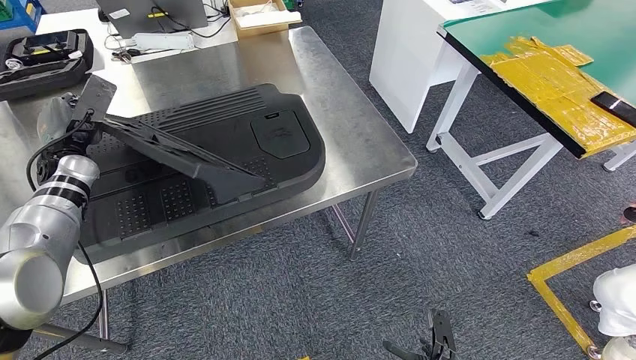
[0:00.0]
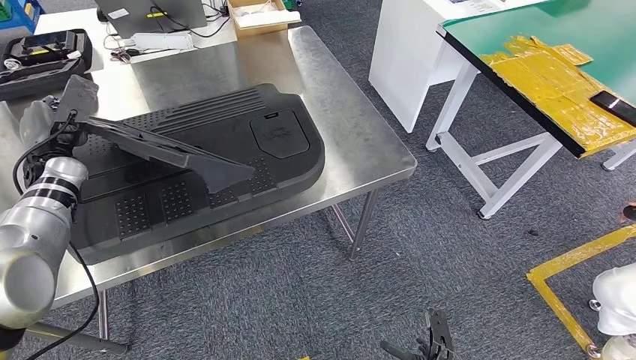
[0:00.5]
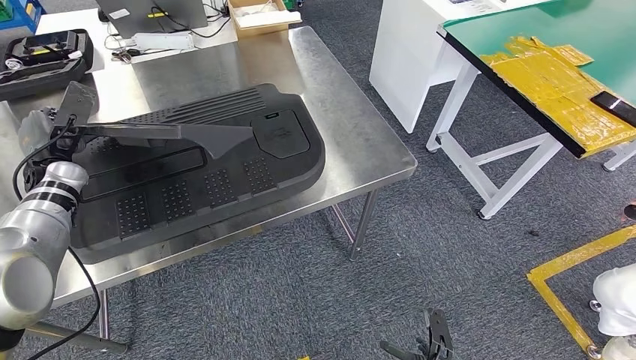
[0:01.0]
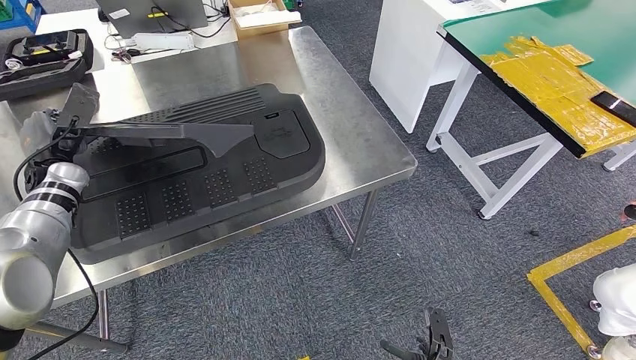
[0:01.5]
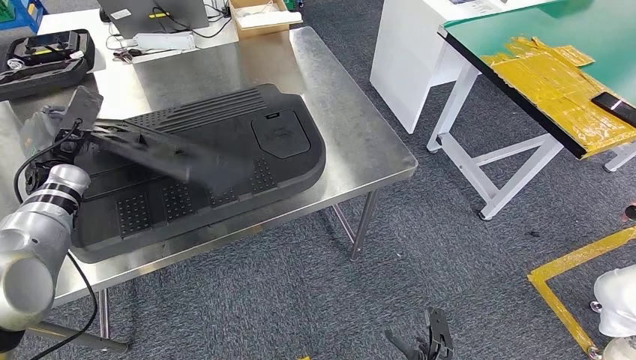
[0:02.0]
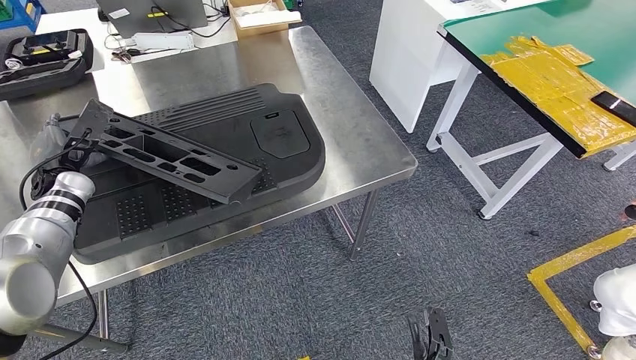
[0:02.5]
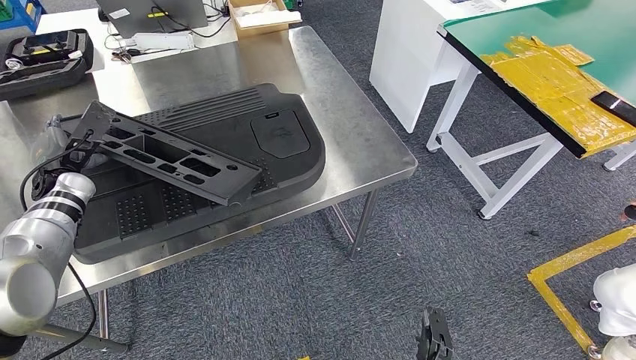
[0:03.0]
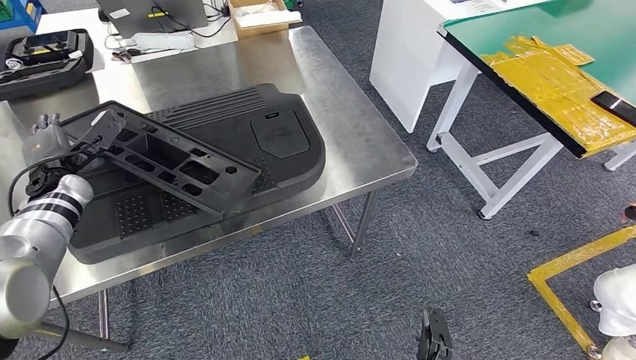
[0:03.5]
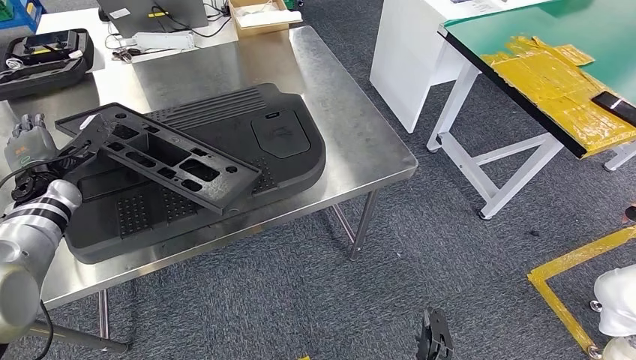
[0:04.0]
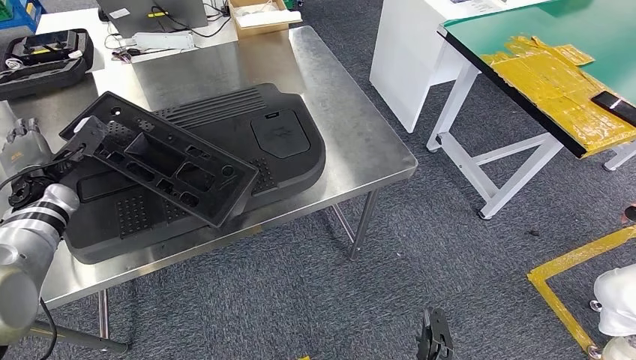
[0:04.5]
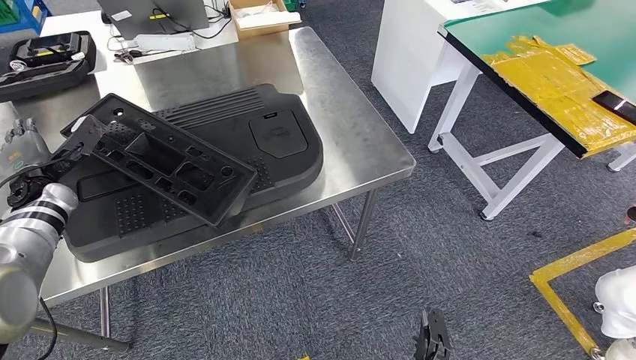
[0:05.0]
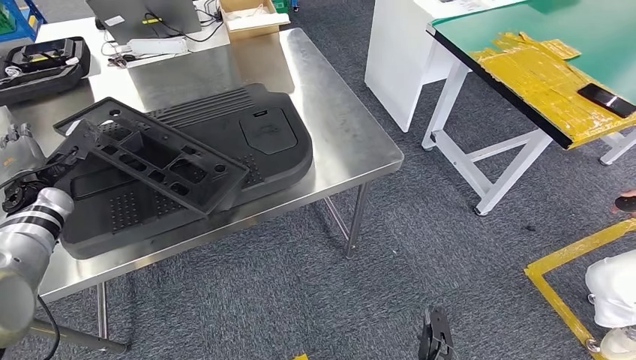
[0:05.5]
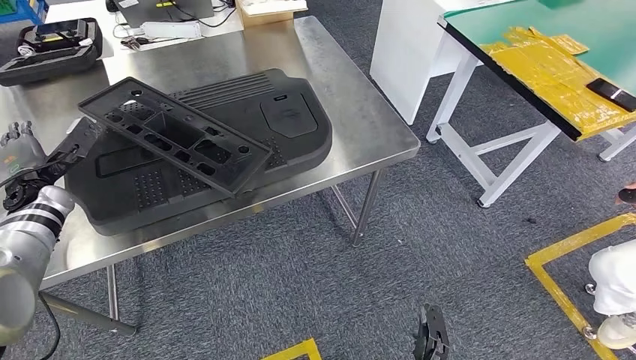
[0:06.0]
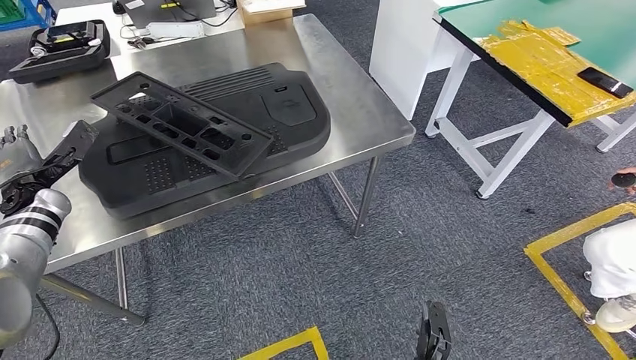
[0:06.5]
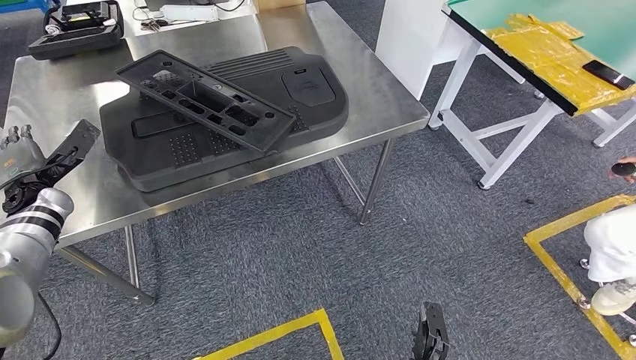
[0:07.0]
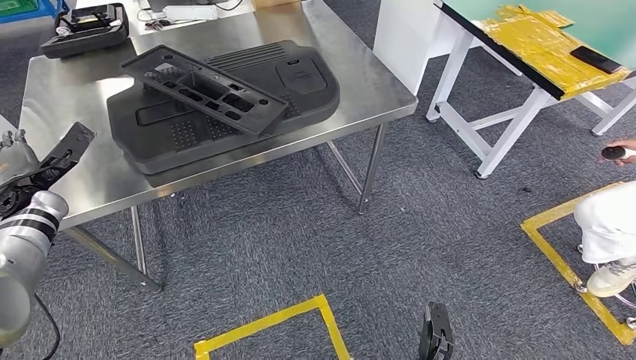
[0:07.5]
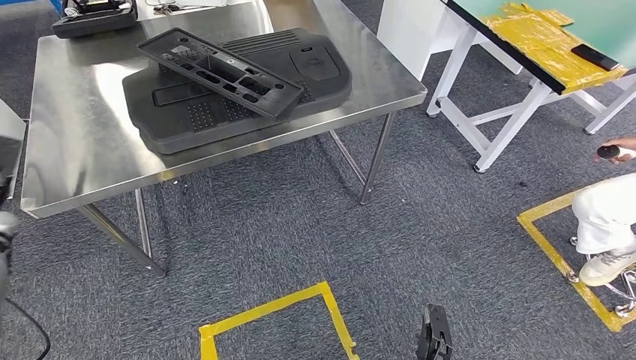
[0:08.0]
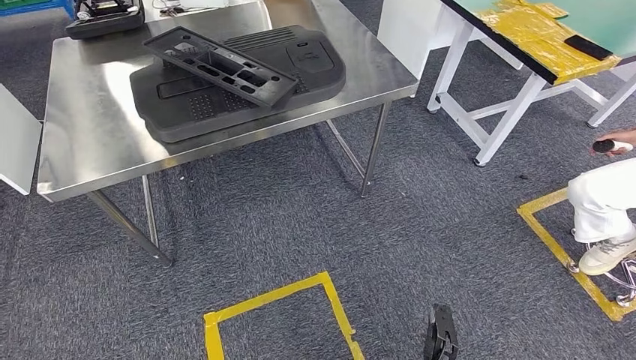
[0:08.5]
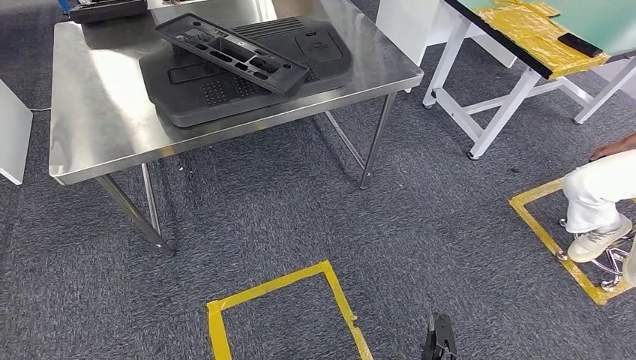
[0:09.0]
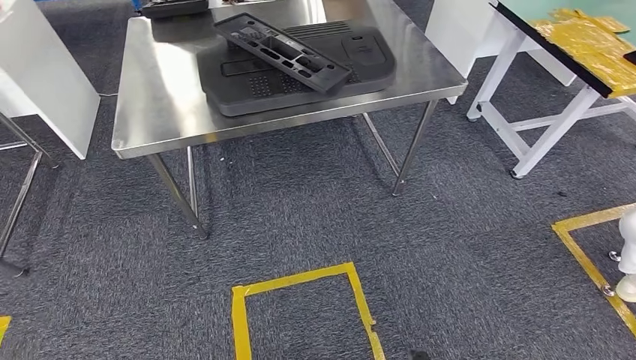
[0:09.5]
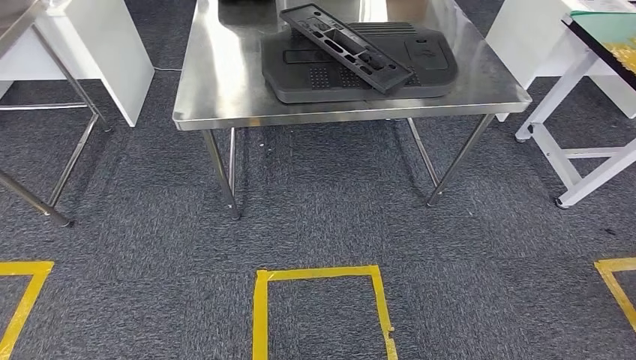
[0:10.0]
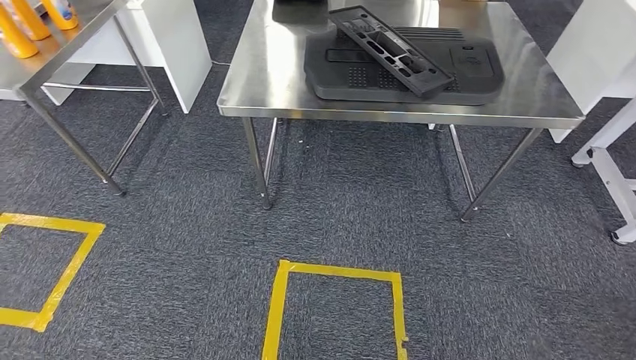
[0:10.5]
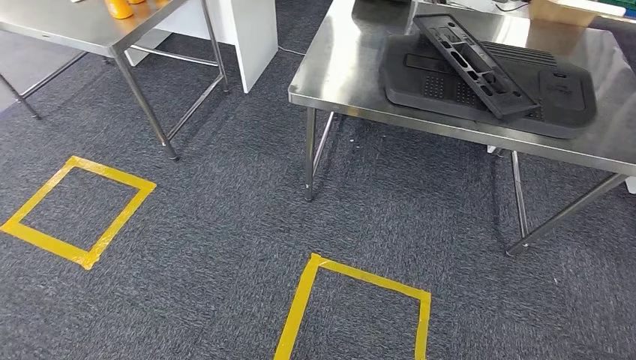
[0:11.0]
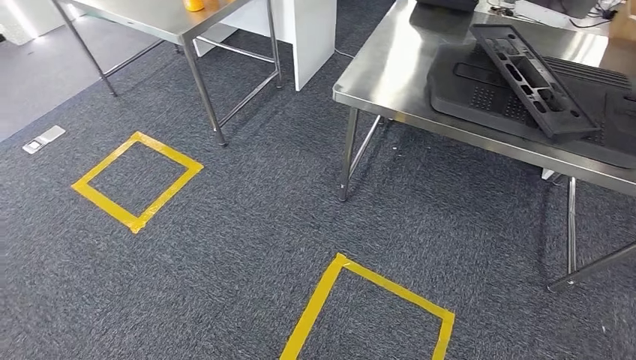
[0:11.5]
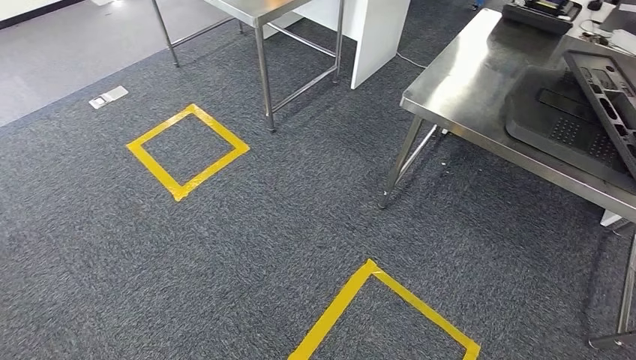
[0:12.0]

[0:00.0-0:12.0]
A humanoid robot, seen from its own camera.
Step, 0:00.0 to 0:03.5: Insert the large material into the corresponding slot on the workbench.
0:00.0 to 0:02.0: The hands stay close to where they were, moving slightly.

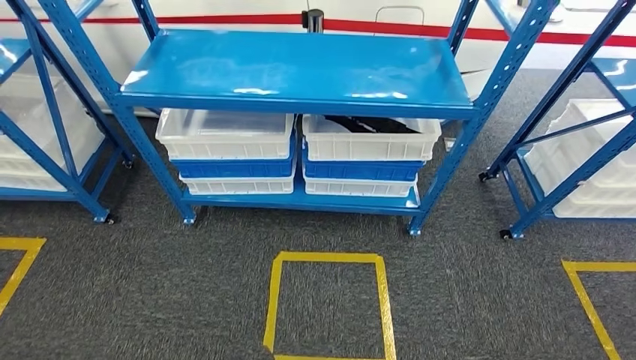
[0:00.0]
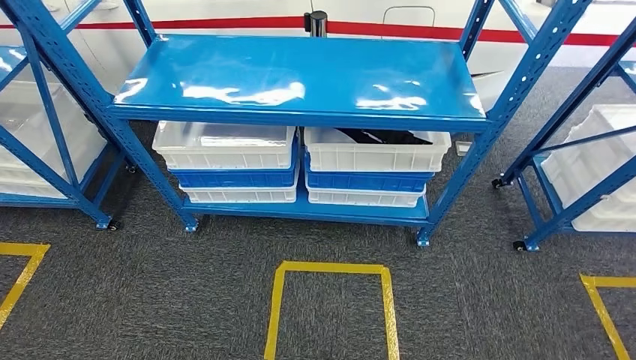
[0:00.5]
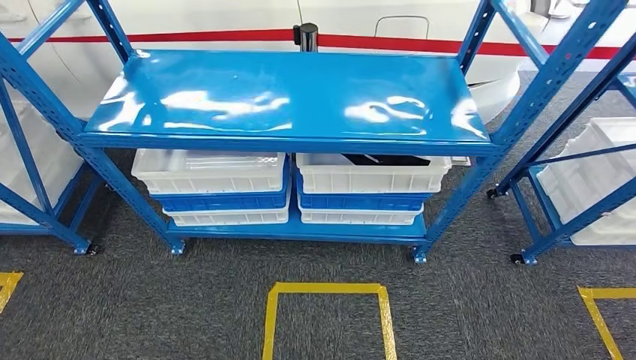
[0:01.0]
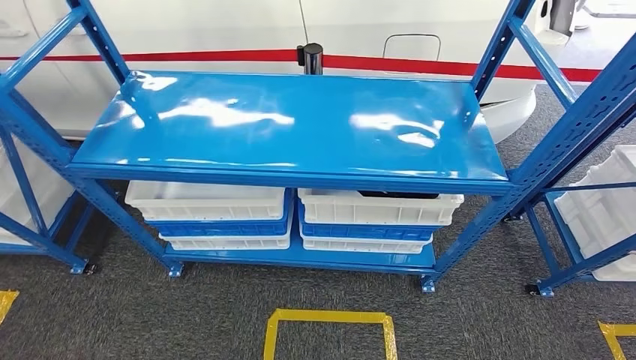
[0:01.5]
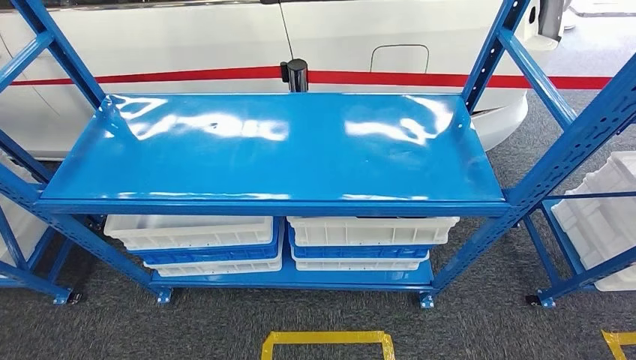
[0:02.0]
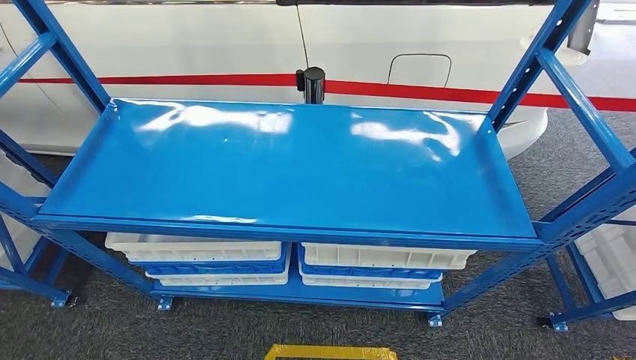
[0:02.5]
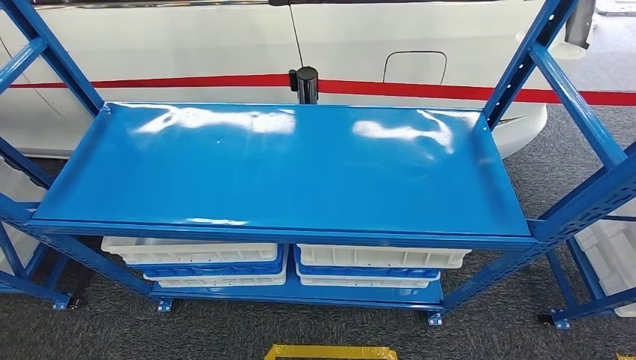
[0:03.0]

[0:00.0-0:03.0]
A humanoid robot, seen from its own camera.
Step, 0:00.0 to 0:03.0: Move to the initial position of the shelf.
